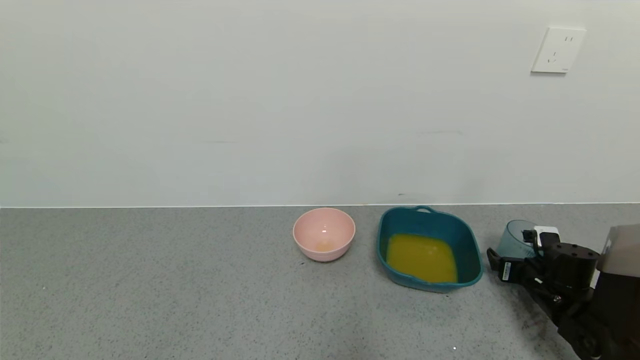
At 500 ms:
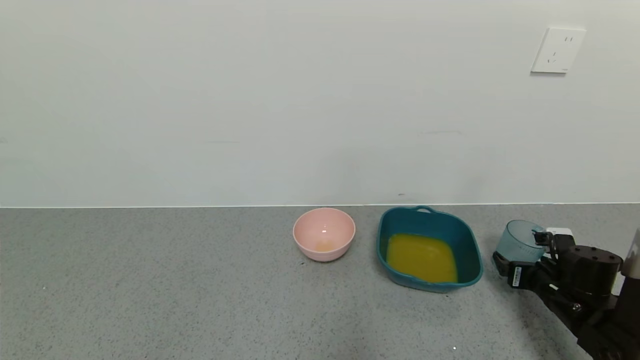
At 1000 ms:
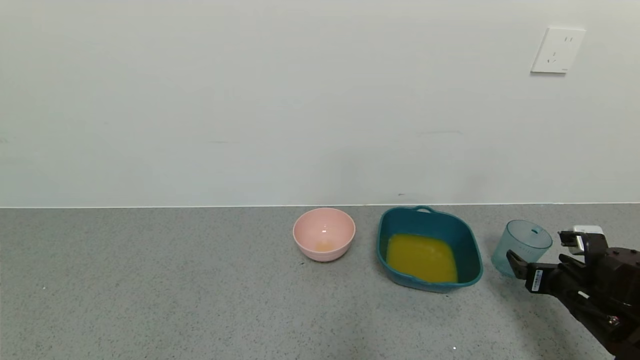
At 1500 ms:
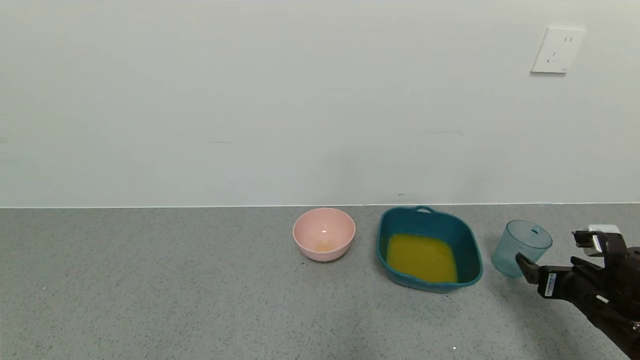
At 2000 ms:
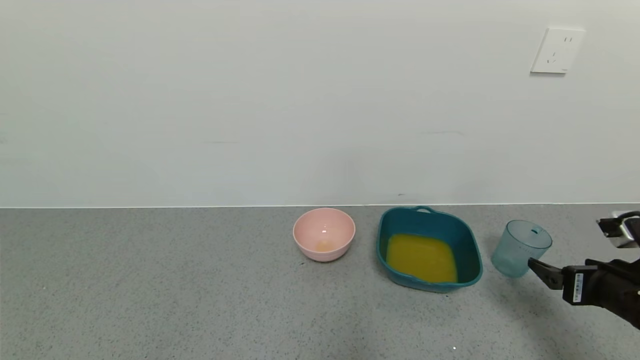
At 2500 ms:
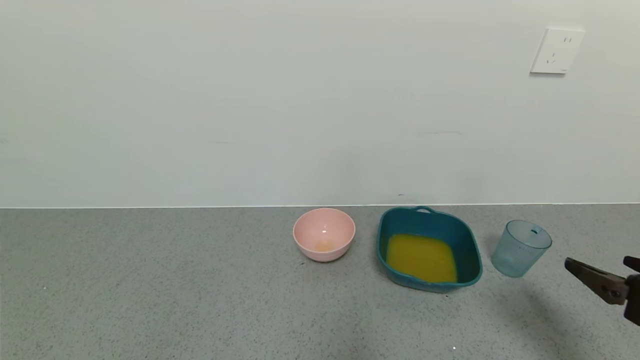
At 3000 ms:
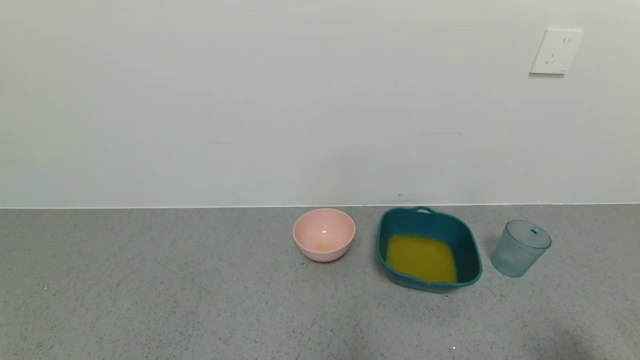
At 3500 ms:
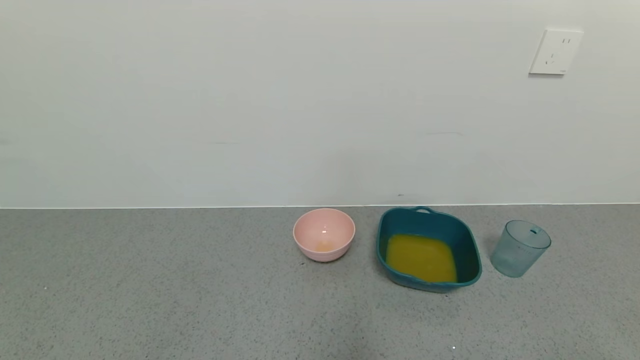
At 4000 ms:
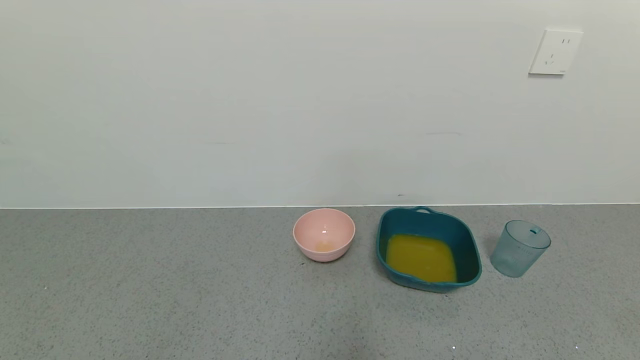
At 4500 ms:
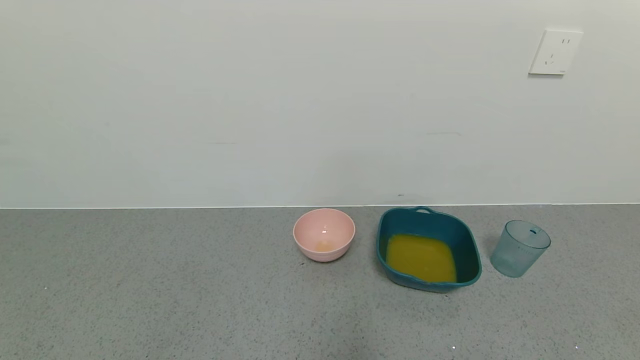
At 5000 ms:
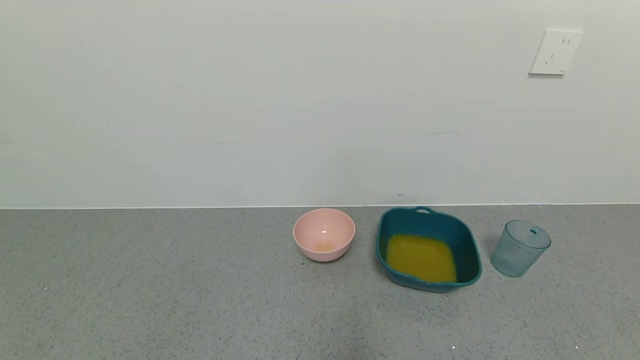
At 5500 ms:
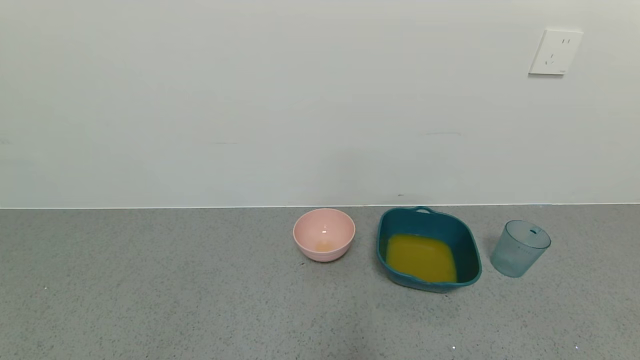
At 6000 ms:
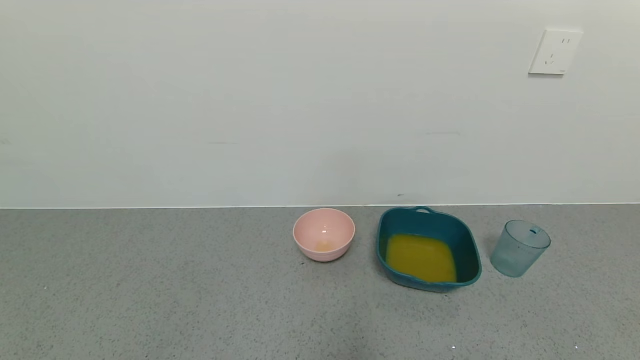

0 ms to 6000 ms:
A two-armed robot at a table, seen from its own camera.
Task of the whole recording: use a gripper to pick up the cup and pour the liquid into a bowl or tray.
0 ms to 2000 ms: The right gripper heads upward and backward, covering roughly 20 cm.
2000 ms to 4000 ms: The right gripper is displaced backward by about 30 cm.
